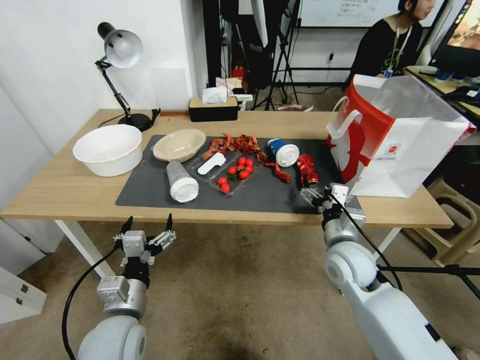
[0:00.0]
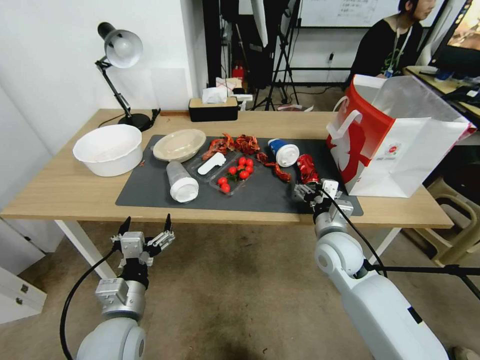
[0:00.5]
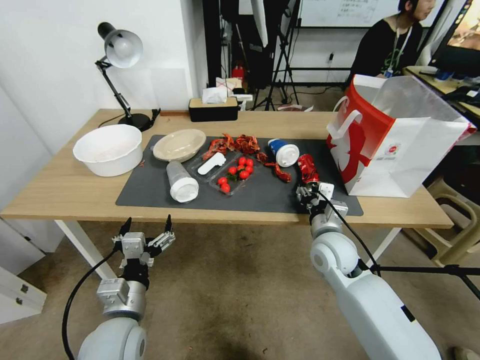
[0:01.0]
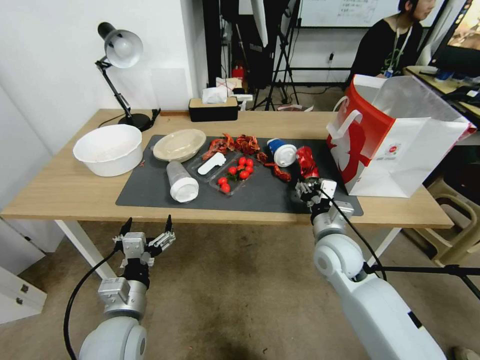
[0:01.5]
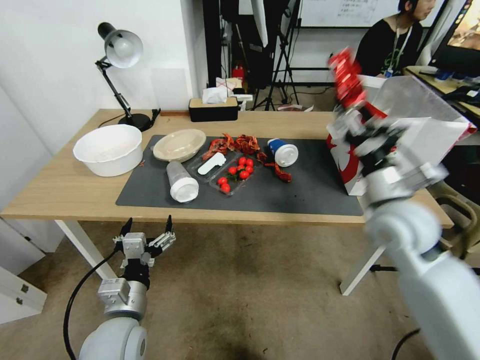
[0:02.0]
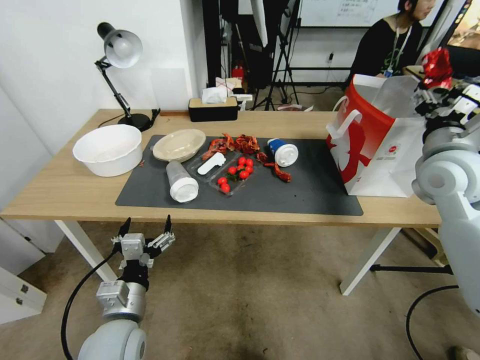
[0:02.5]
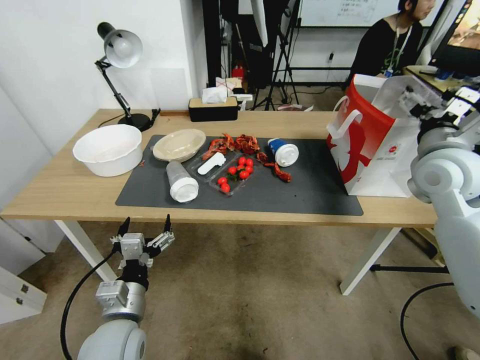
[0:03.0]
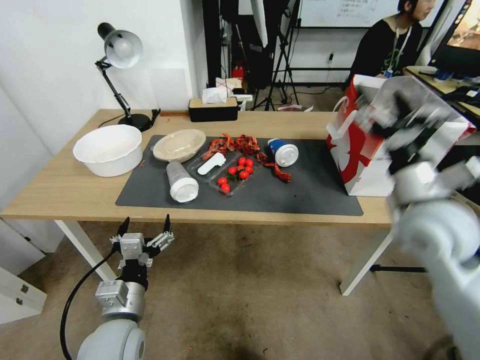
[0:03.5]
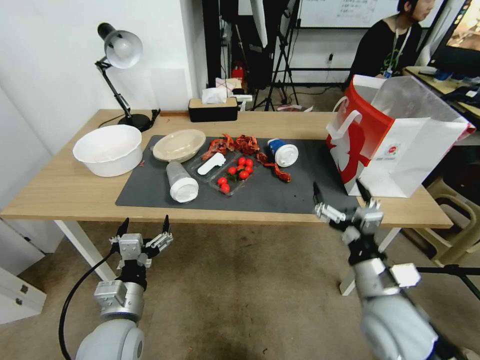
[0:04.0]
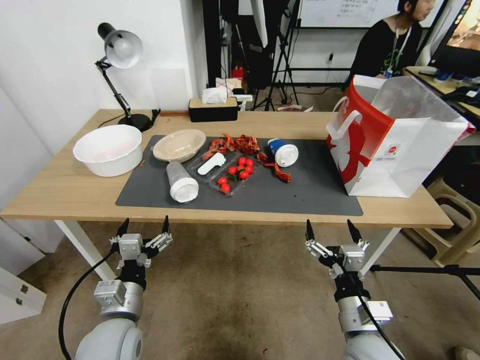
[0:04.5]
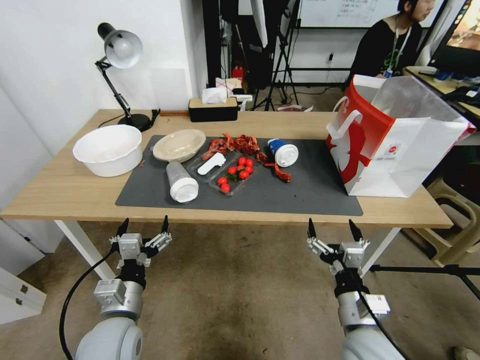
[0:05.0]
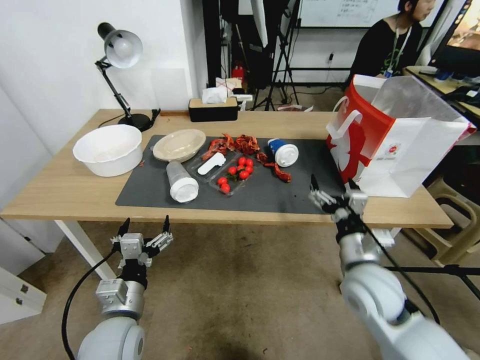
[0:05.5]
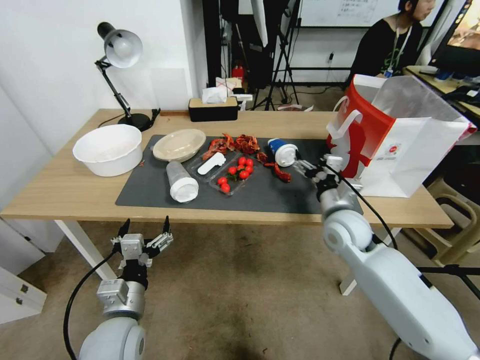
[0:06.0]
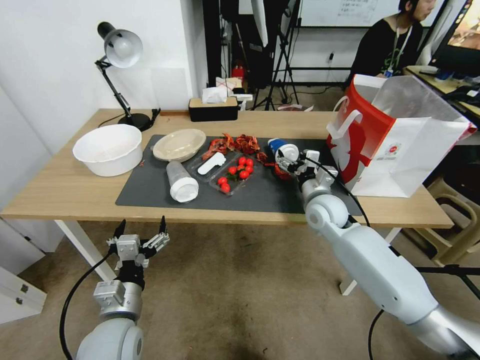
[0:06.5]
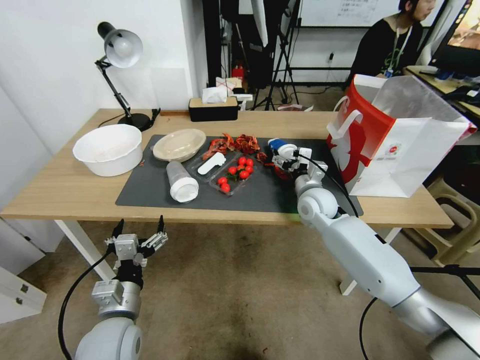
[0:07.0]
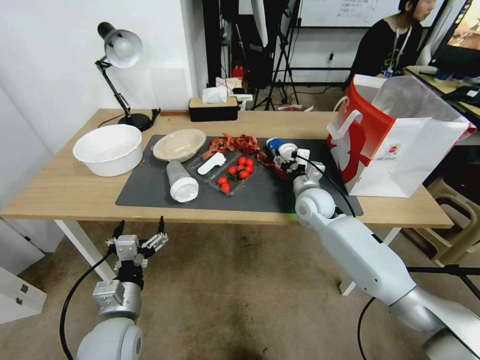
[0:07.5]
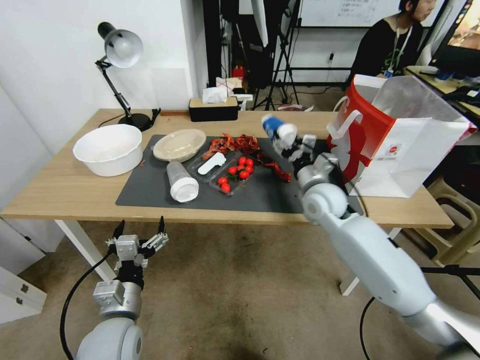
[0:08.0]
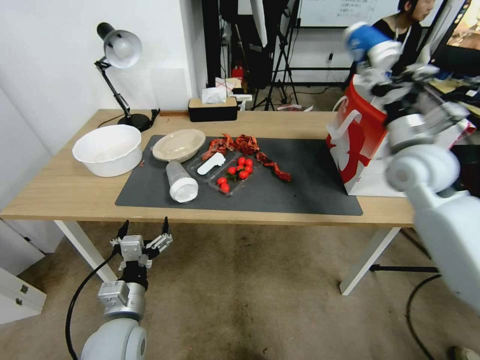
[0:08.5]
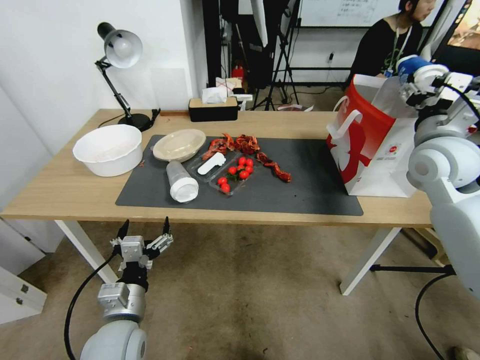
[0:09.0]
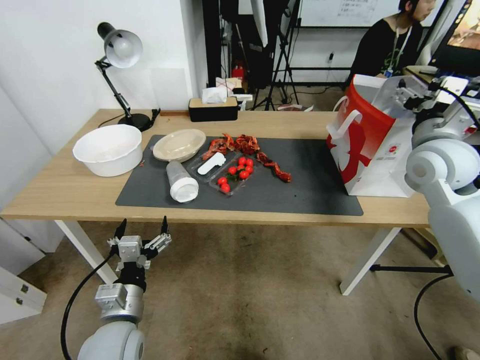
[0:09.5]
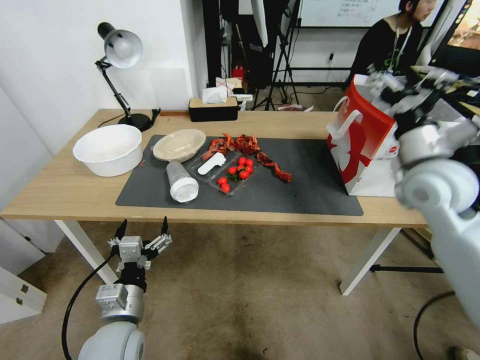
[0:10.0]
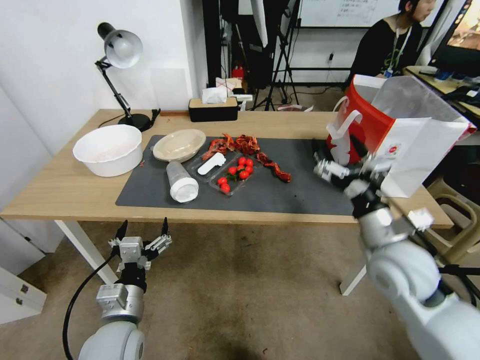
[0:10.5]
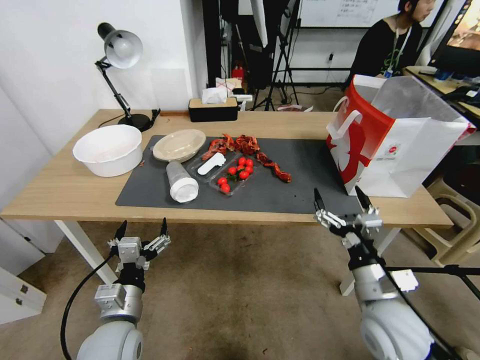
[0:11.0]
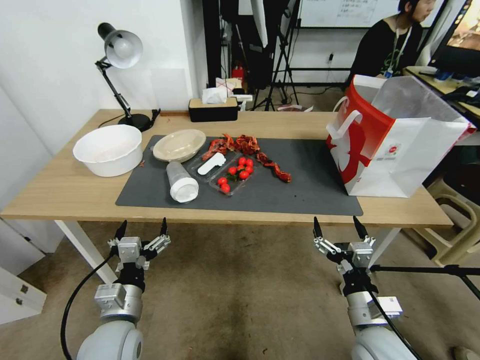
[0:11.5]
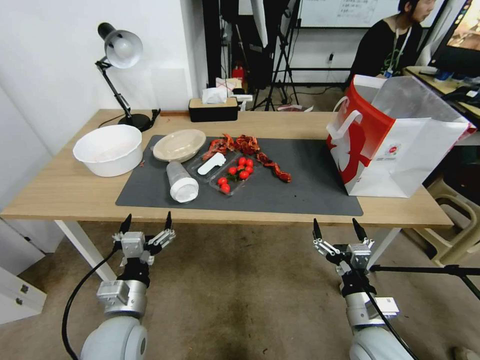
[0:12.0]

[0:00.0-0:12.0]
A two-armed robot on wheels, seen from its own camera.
0:00.0 to 0:02.0: The right gripper heads upward, covering about 5 cm, and closes up.
0:02.0 to 0:04.0: The right gripper goes approximately 10 cm backward, and opens.
0:04.0 to 0:06.0: The right gripper is displaced forward by roughly 15 cm.
0:06.0 to 0:08.0: The right gripper heads forward, covering approximately 5 cm, and closes.
0:08.0 to 0:10.0: The right gripper is displaced upward, to the right and backward by approximately 20 cm, and opens.
0:10.0 to 0:12.0: The right gripper shifts about 35 cm downward and backward.

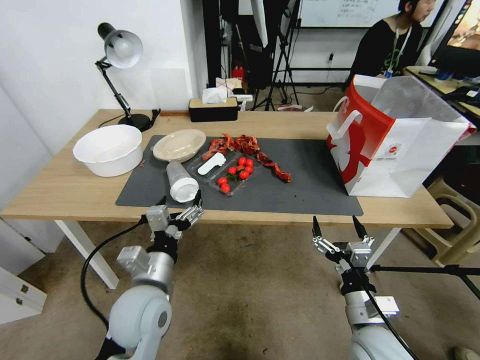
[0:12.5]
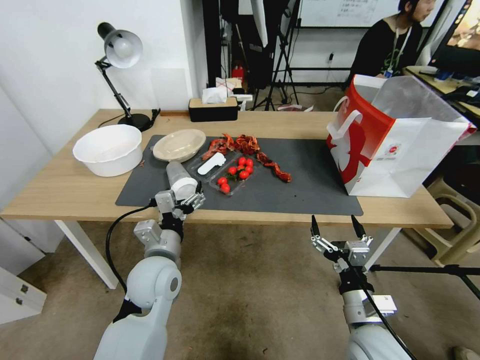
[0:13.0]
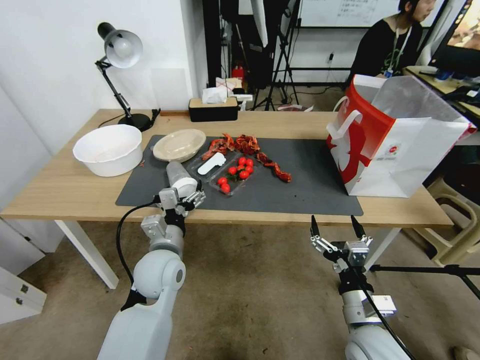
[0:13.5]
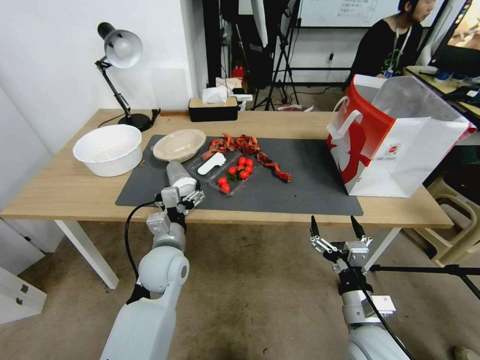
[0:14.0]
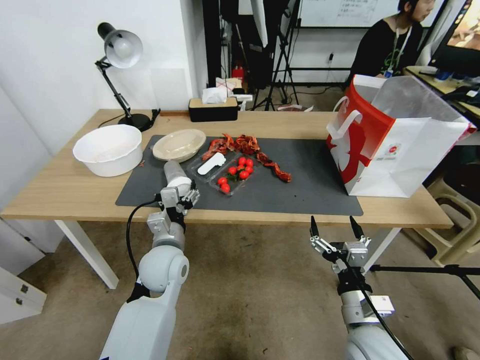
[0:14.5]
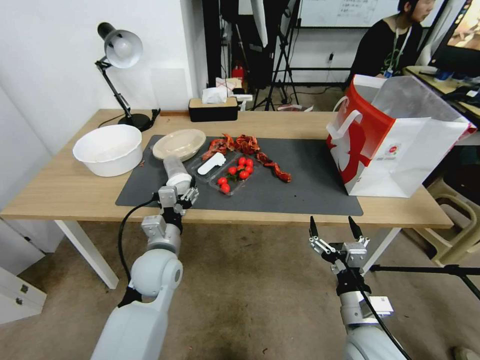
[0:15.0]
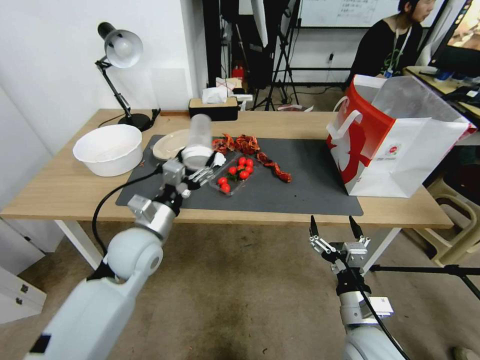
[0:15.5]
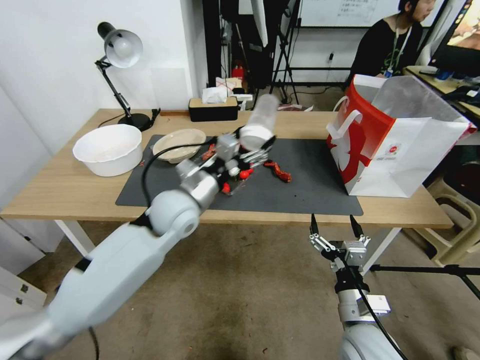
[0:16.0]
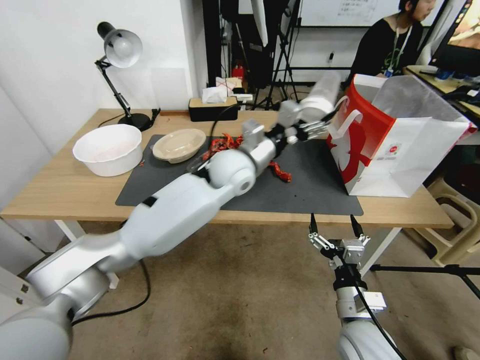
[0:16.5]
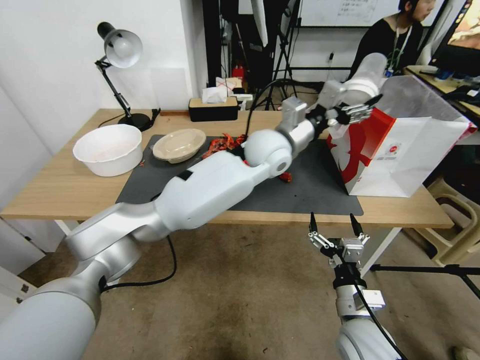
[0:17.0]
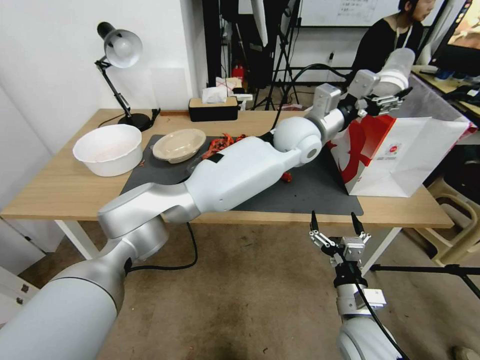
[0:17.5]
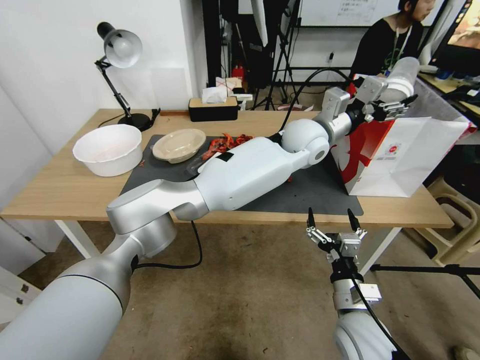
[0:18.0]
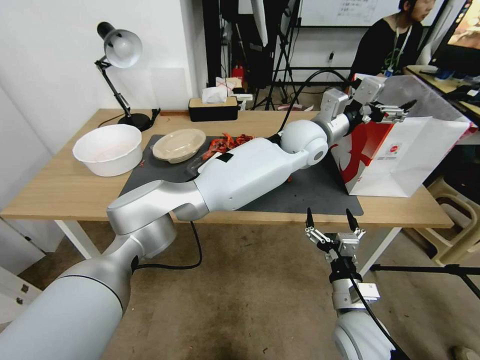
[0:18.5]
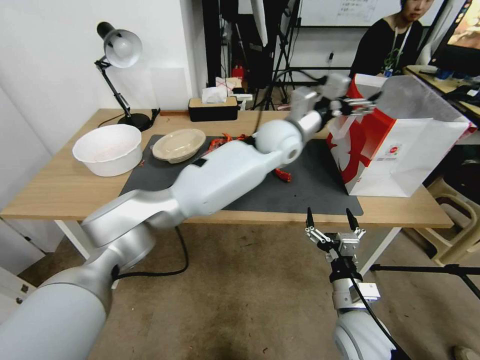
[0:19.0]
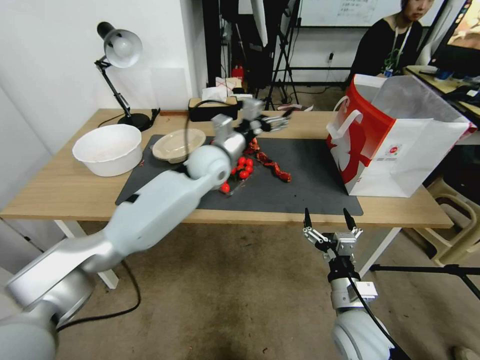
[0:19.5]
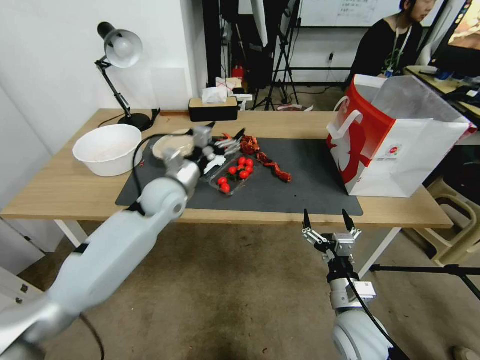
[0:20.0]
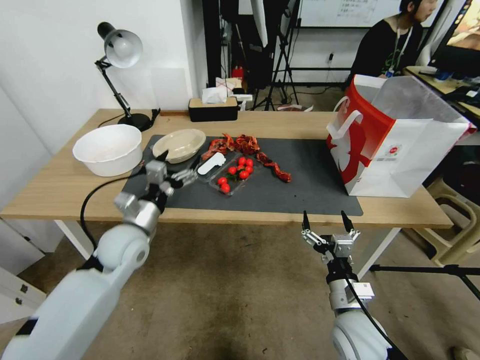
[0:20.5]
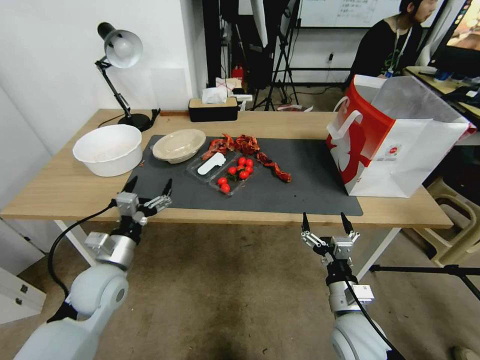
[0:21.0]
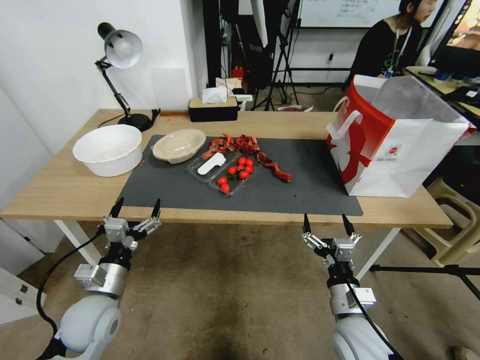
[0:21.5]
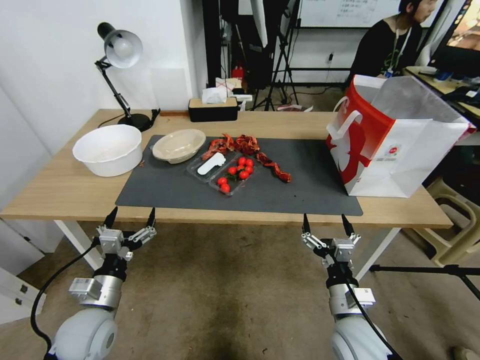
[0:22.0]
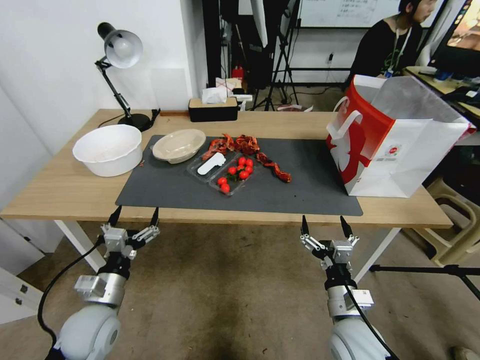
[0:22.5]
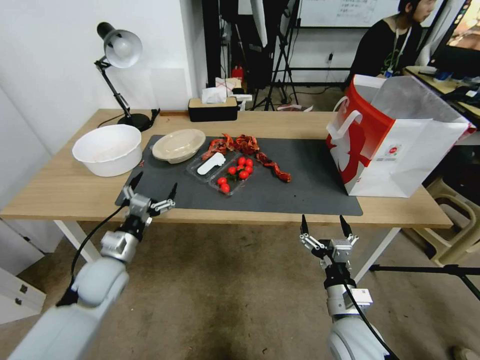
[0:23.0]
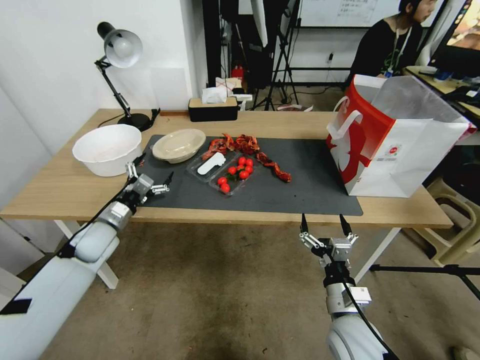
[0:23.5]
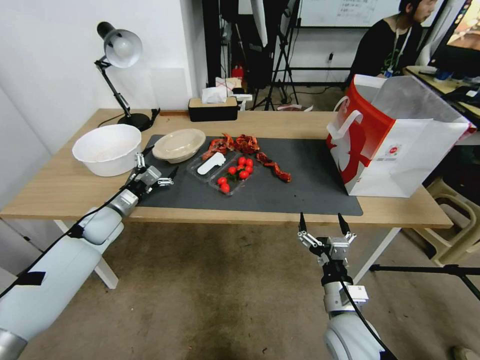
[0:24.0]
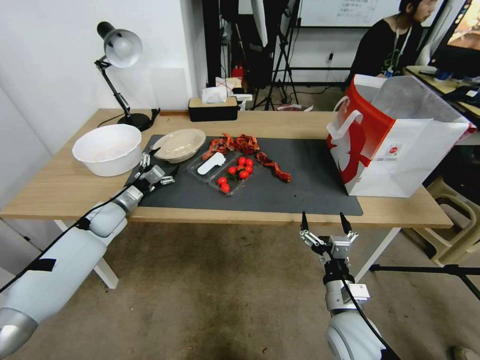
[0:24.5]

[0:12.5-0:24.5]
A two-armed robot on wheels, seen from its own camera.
0:12.5 to 0:14.5: The left gripper is displaced forward by about 10 cm.
0:14.5 to 0:16.5: The left gripper shifts approximately 25 cm upward, forward and to the right.
0:16.5 to 0:18.5: The left gripper moves to the right, roughly 15 cm.
0:18.5 to 0:20.5: The left gripper moves to the left, downward and backward, some 40 cm.
0:20.5 to 0:22.5: The left gripper moves backward and downward, about 20 cm.
0:22.5 to 0:24.5: The left gripper heads forward, covering some 25 cm.

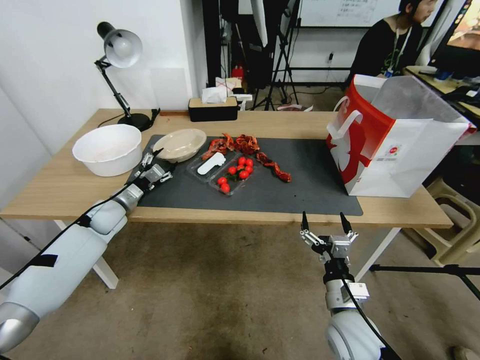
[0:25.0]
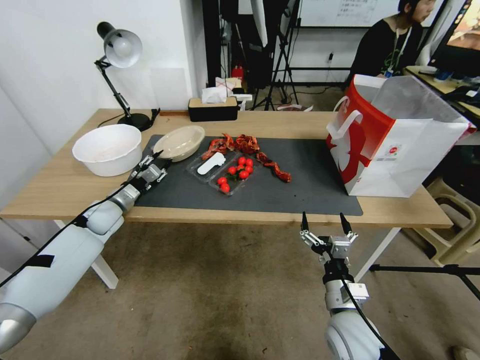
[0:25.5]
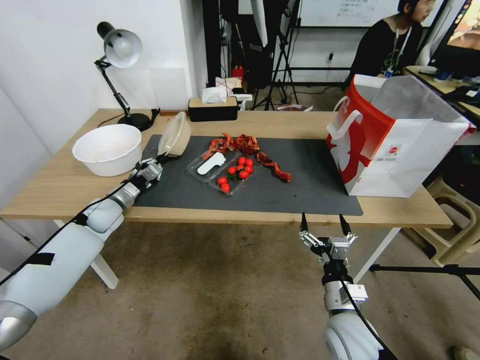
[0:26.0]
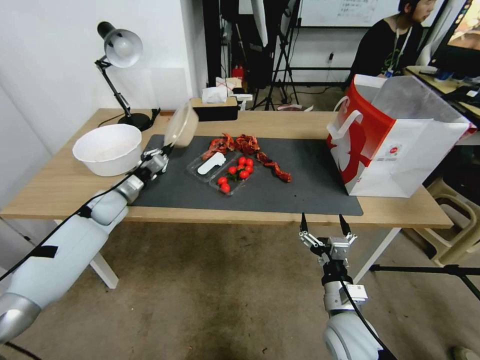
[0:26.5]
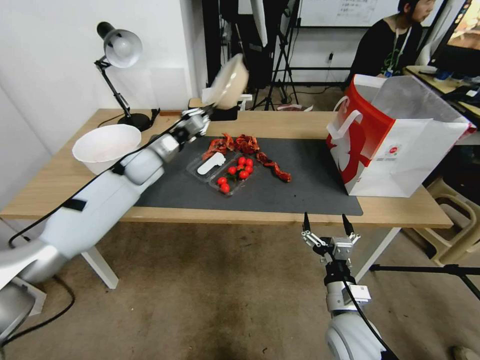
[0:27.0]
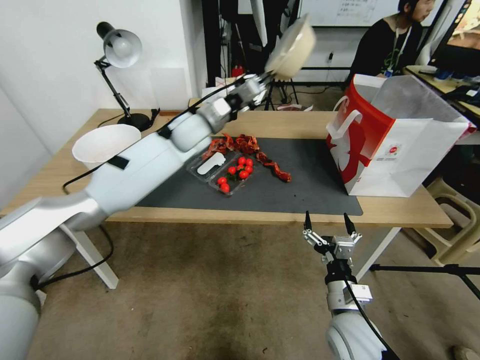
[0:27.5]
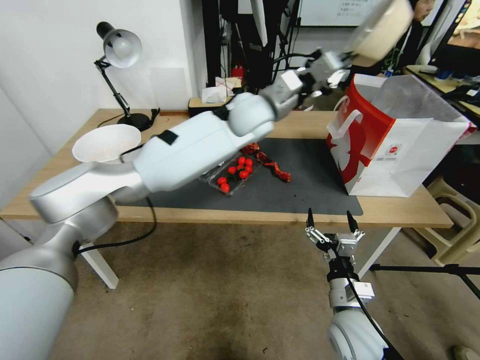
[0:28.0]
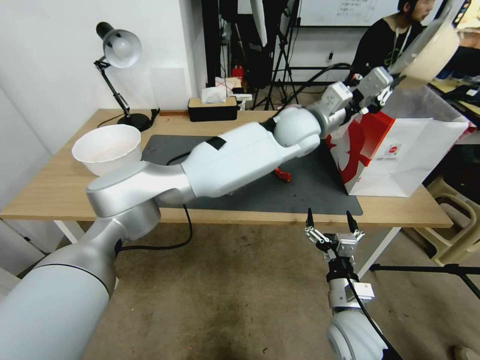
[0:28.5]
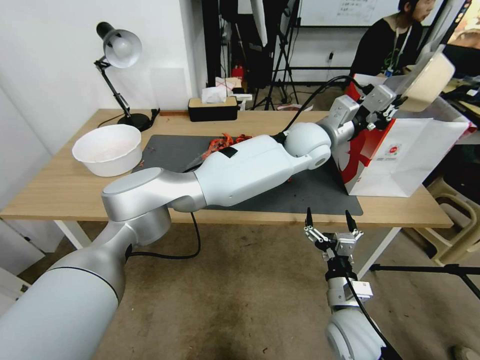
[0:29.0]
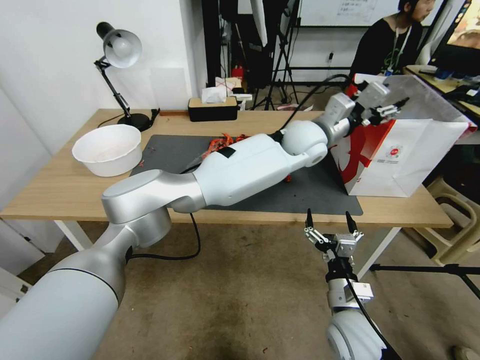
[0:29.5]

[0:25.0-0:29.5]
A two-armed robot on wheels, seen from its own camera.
0:25.0 to 0:27.0: The left gripper closes up.
0:27.0 to 0:29.5: The left gripper heads to the right, covering about 50 cm, and opens up.
